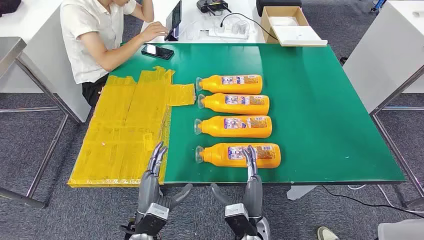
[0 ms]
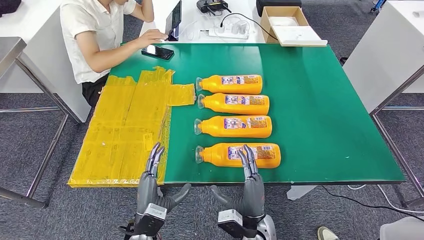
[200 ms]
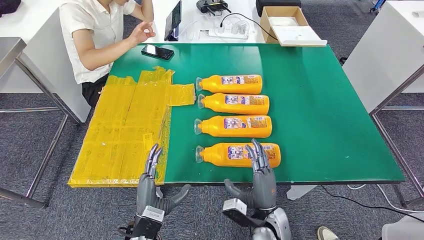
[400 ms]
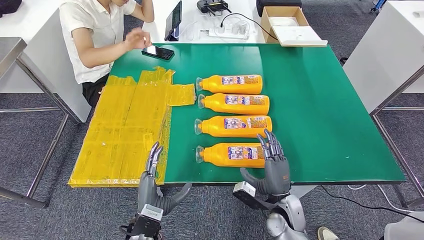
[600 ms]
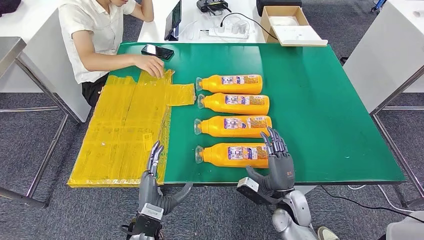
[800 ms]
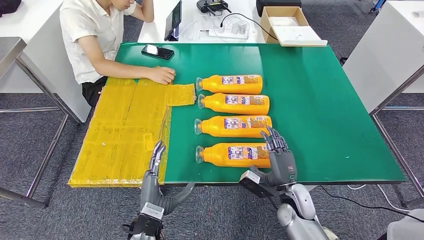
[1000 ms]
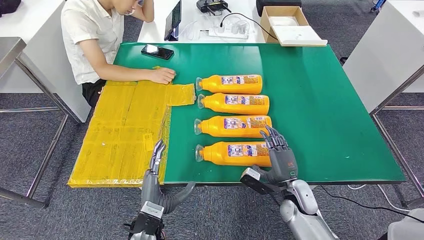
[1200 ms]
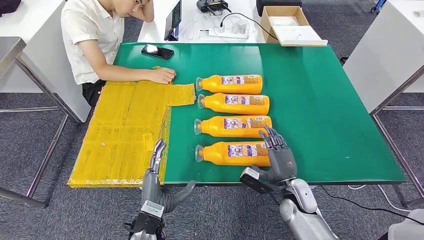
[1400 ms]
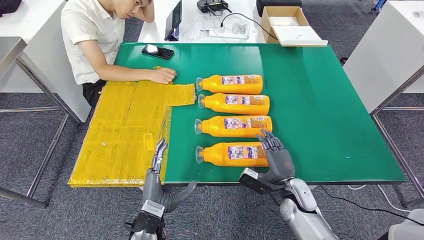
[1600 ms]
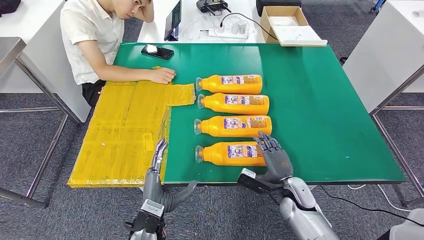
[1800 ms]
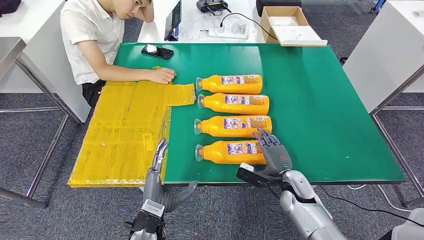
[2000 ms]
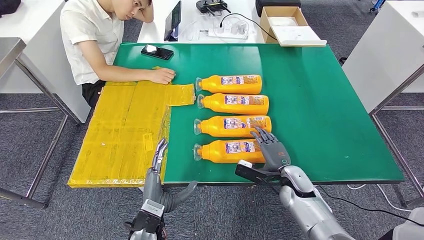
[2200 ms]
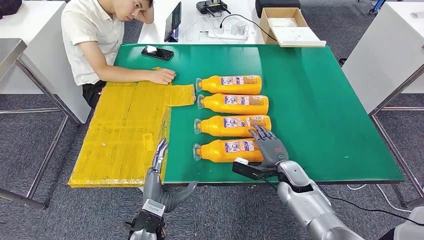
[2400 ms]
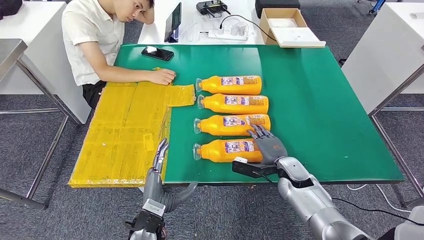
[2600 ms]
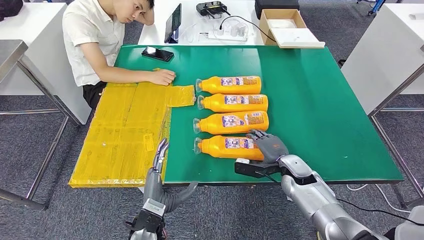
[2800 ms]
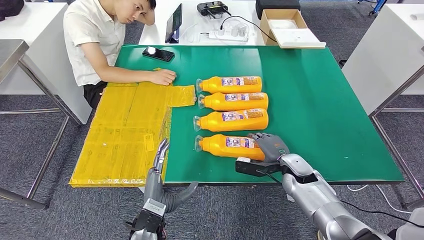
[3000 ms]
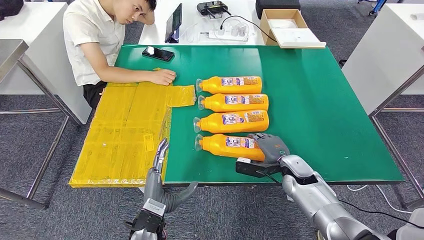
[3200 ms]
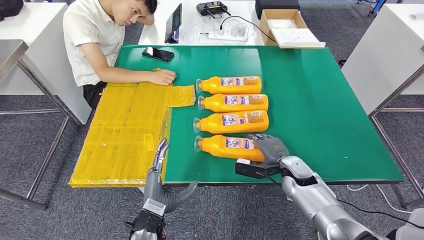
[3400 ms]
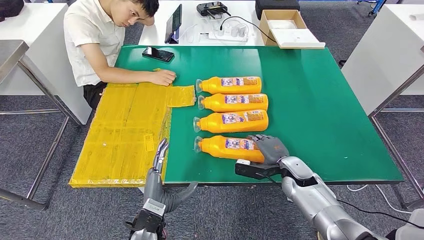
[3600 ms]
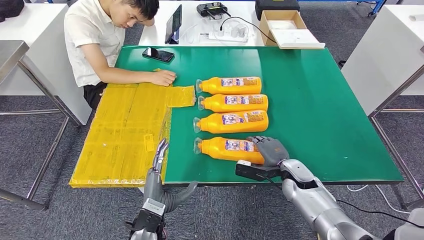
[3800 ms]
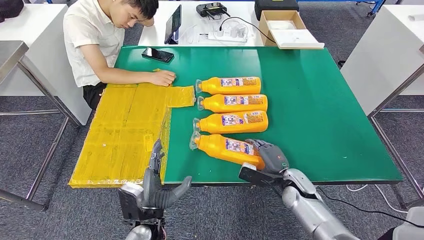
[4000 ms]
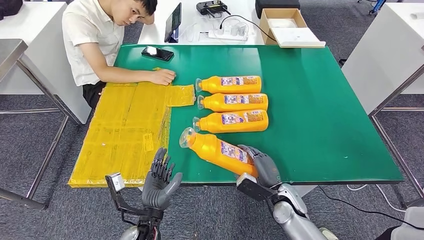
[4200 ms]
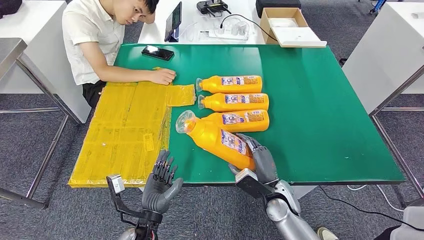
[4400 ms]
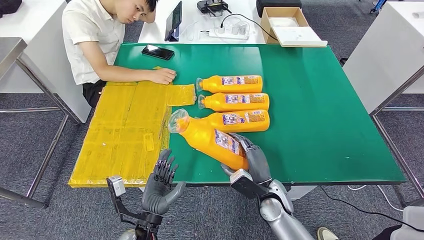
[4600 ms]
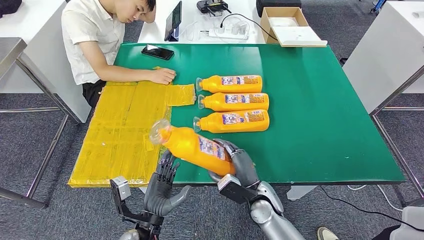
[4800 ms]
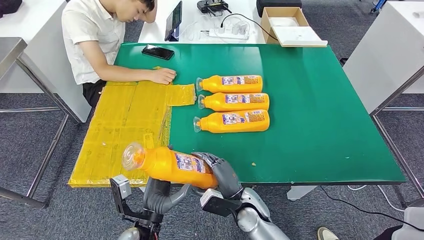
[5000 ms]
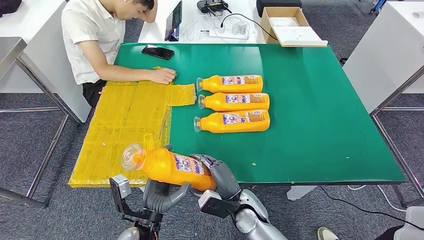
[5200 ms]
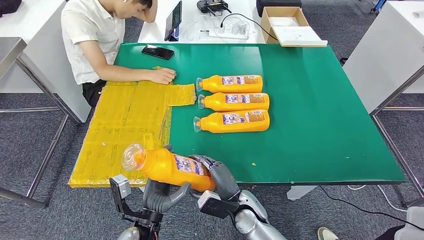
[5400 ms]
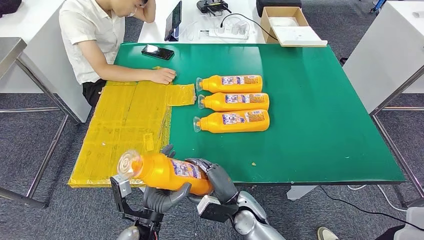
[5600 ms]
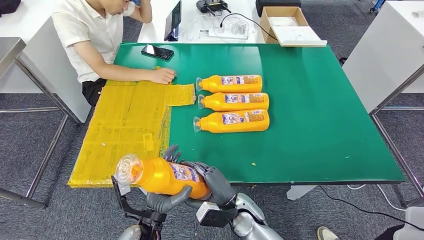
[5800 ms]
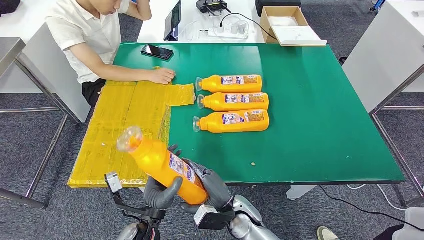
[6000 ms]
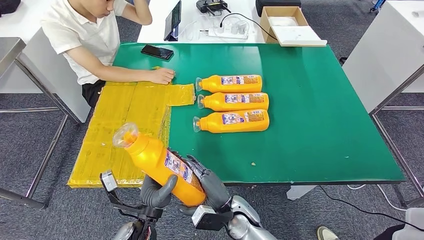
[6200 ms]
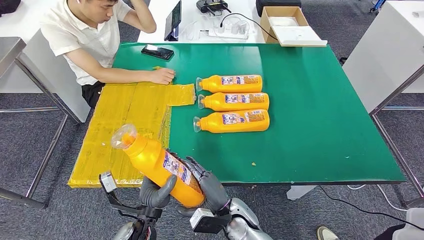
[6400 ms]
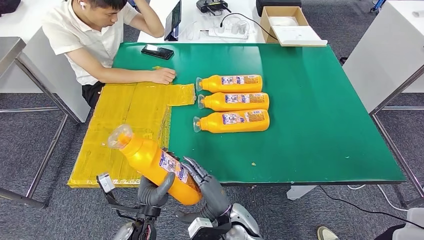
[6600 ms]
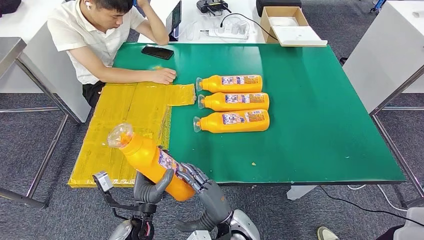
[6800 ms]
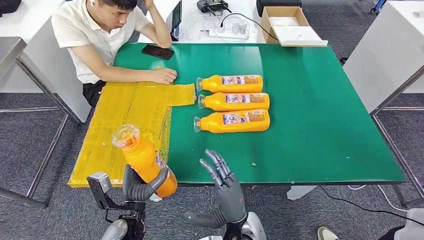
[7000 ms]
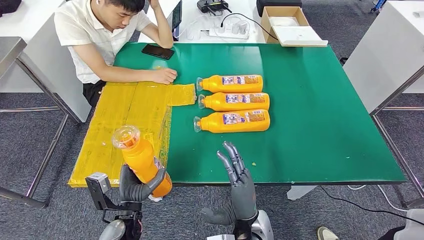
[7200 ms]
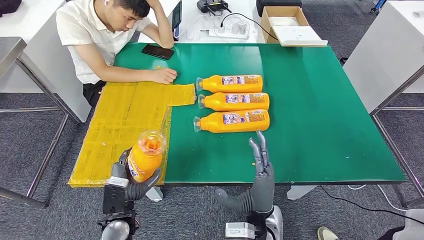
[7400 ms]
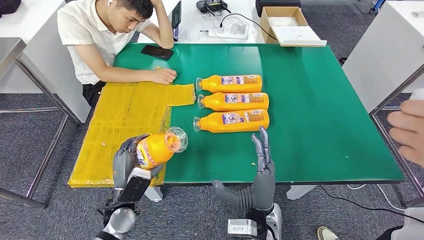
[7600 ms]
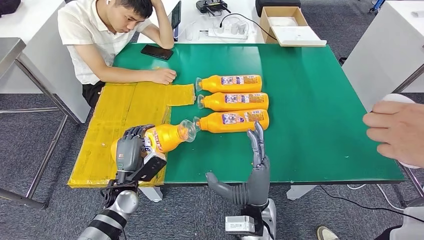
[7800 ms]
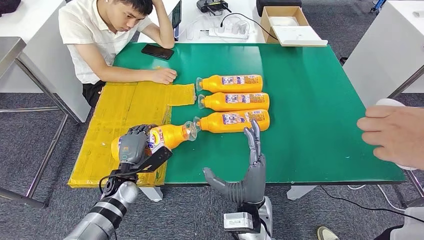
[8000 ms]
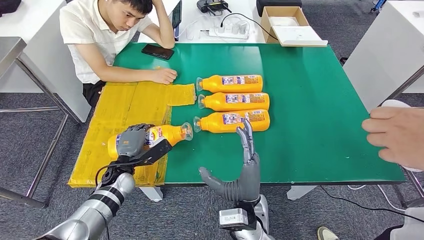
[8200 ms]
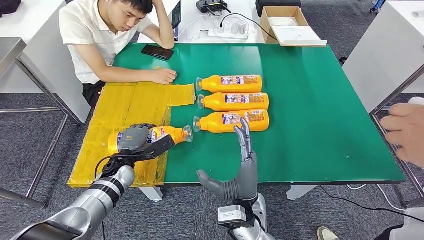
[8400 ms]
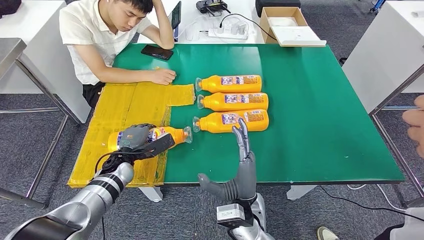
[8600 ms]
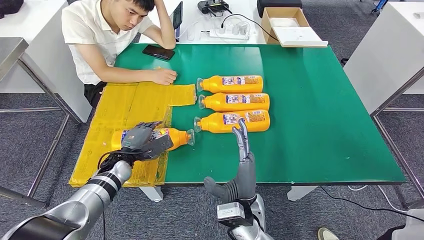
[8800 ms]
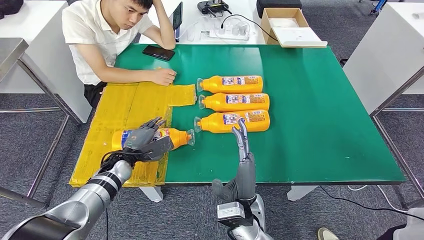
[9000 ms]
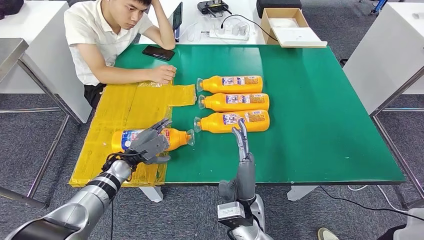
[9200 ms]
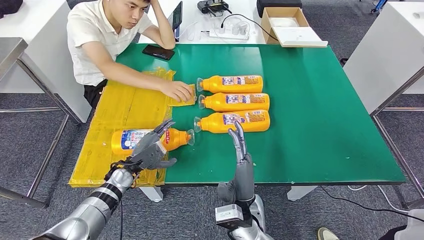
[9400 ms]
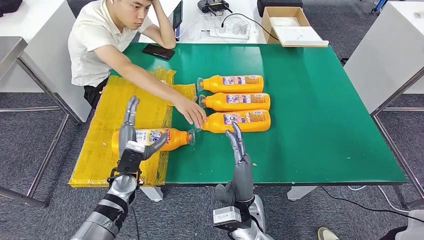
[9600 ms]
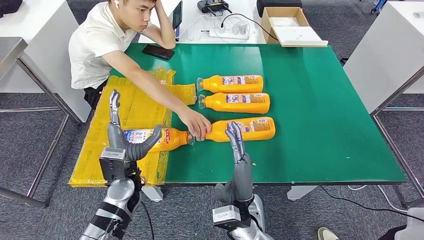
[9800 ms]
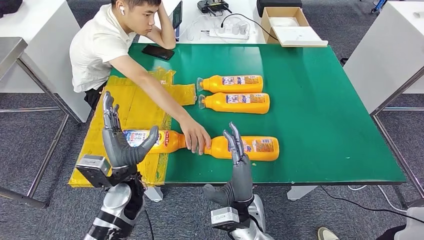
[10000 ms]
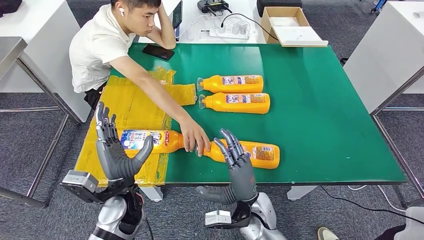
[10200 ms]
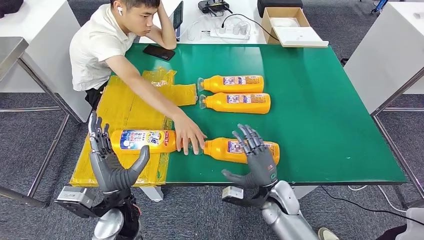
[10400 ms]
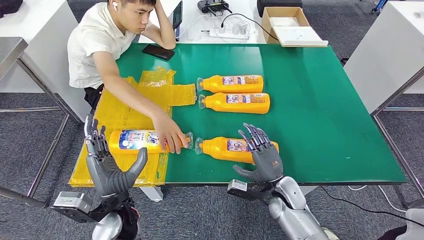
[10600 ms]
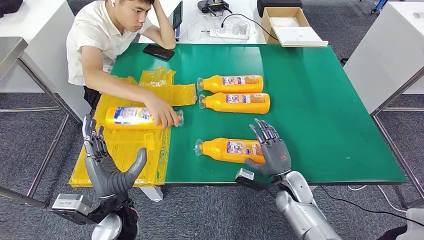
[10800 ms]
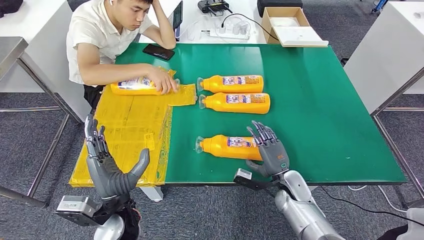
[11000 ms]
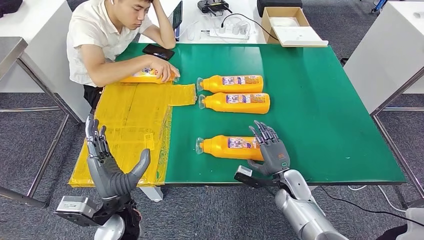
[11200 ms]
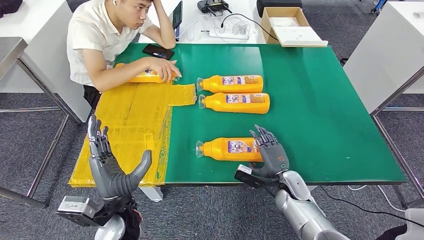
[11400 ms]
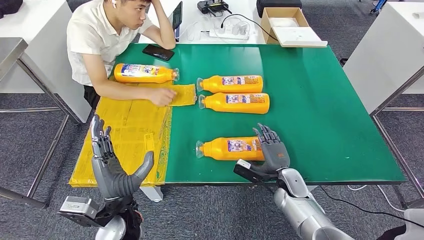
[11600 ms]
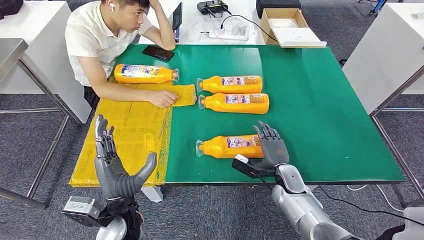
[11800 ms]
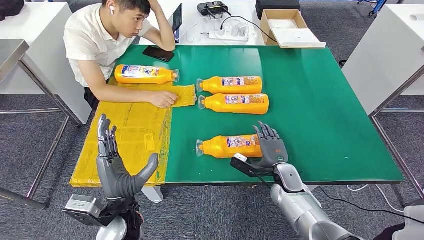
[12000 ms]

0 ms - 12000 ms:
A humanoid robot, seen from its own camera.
Step, 0 ms - 5600 ms: Take the bottle from the table.
Step, 6000 ms - 10000 ms: Flip the bottle to face forward.
1600 ms - 3000 ms: The right hand moves forward, roughly 5 cm.
3000 ms - 4400 ms: The right hand shifts roughly 10 cm backward and to the left.
4400 ms - 6000 ms: The right hand moves to the left, some 10 cm.
6000 ms - 7600 ms: The left hand goes roughly 10 cm to the left and forward. The right hand is displaced upward by about 10 cm.

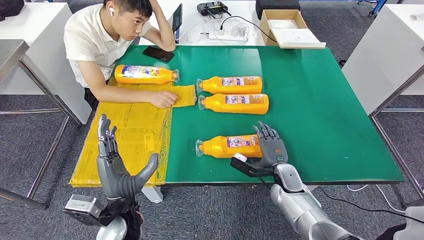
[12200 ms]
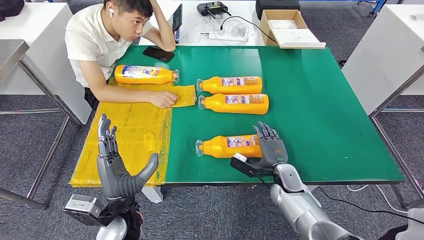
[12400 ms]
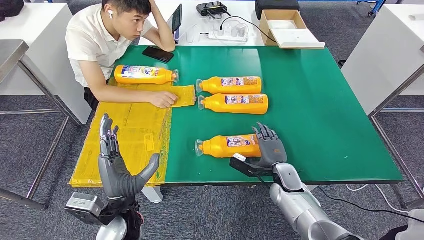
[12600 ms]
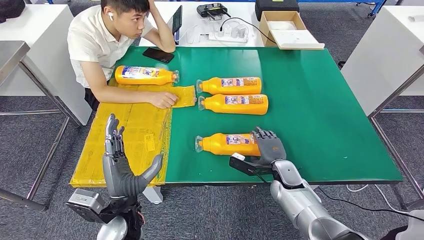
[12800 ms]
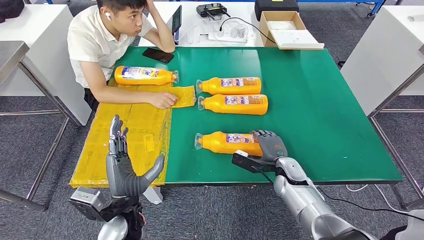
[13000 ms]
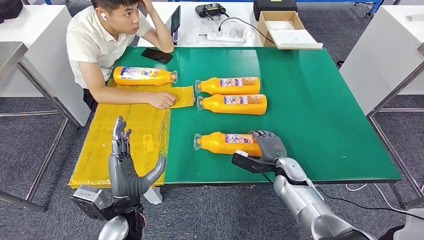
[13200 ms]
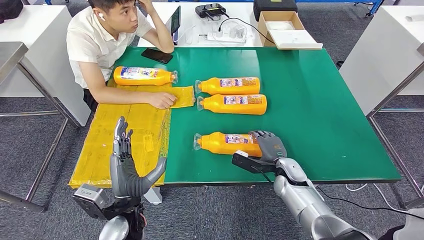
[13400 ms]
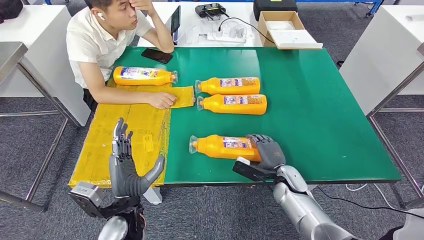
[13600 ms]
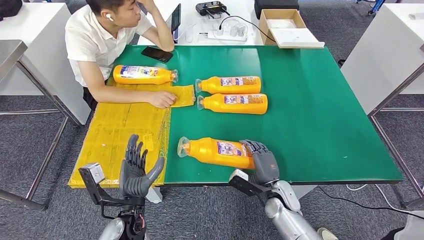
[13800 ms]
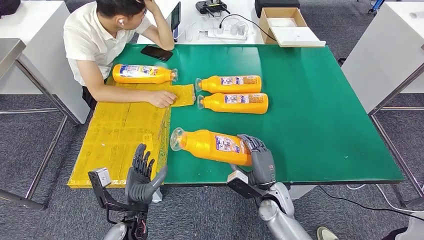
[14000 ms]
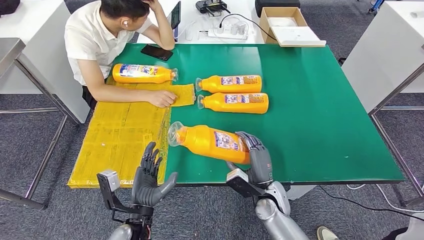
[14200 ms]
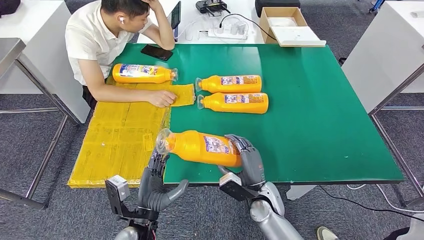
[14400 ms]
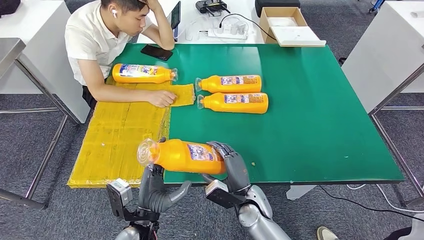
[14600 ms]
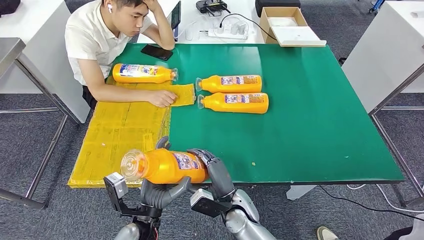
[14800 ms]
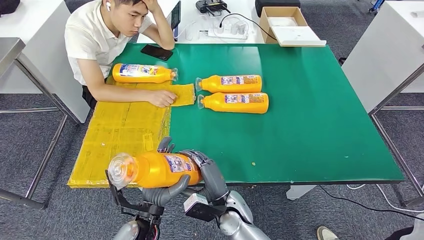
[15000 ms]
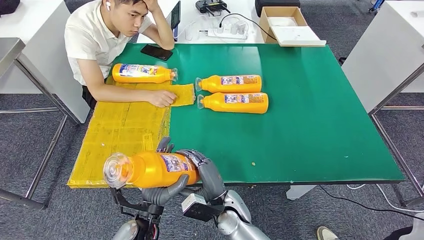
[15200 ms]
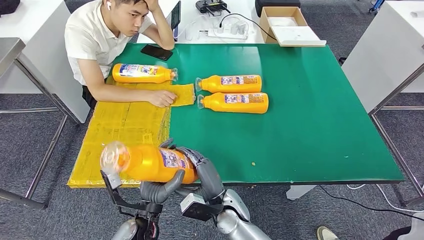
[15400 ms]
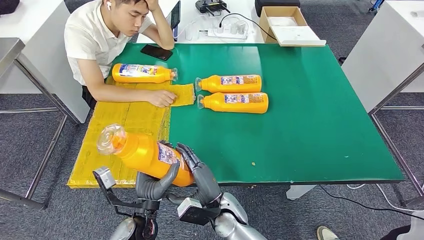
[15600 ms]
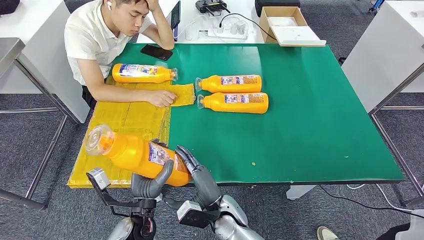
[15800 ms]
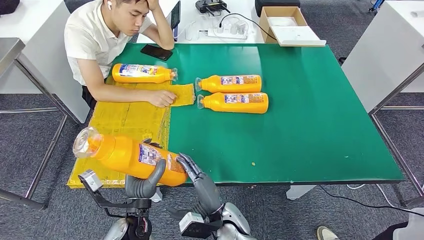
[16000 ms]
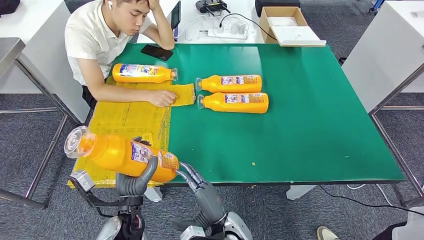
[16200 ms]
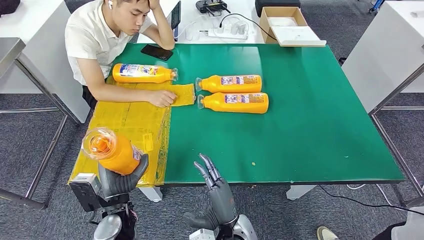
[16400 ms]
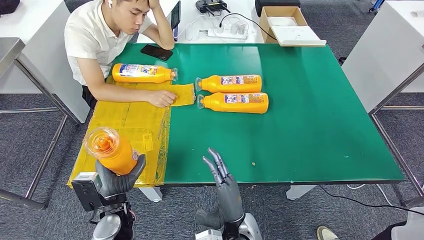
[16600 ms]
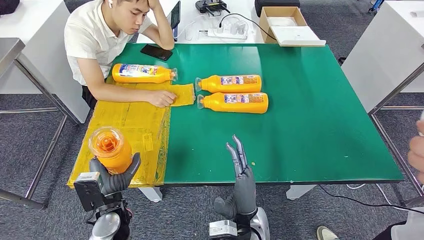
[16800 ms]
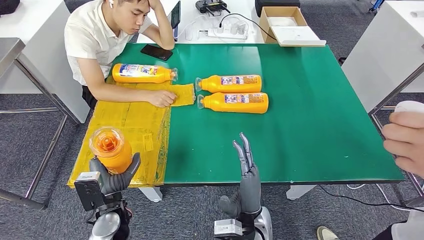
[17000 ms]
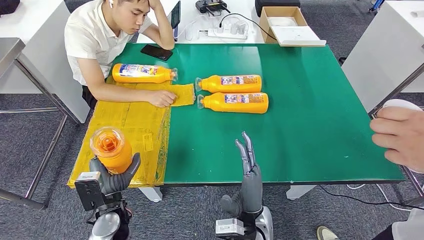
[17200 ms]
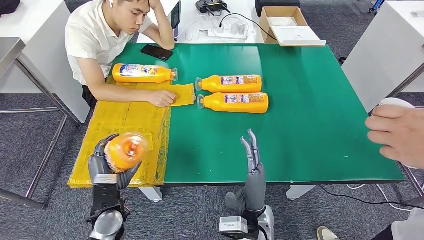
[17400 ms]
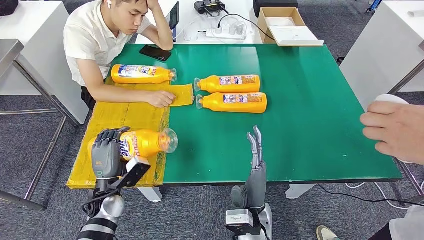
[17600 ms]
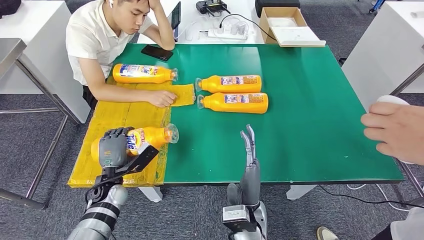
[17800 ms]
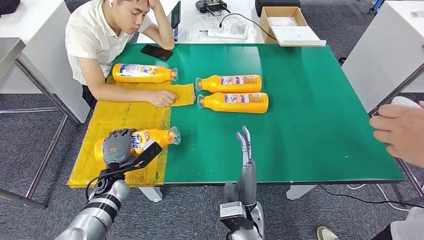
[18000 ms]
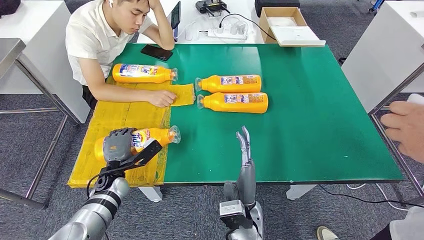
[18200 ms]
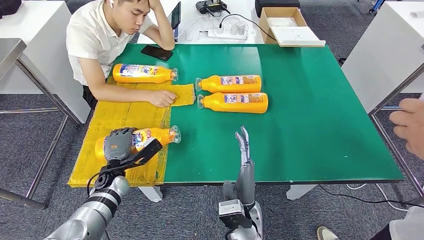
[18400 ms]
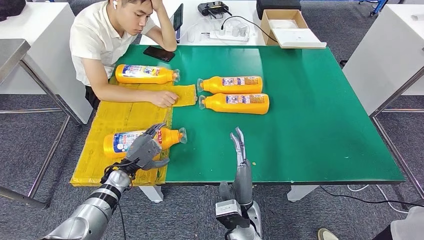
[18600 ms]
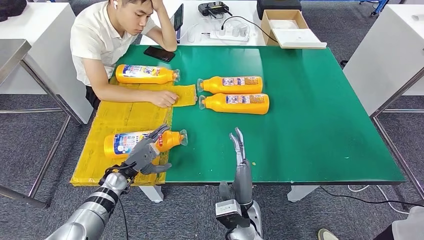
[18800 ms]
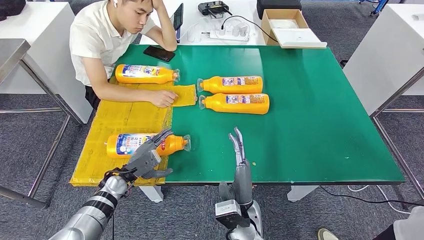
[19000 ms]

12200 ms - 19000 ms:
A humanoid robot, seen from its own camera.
Step, 12200 ms - 16200 ms: Pick up the bottle from the table.
15000 ms - 16200 ms: The right hand shifts by approximately 5 cm.
